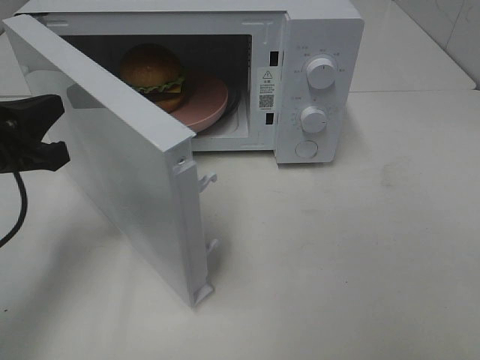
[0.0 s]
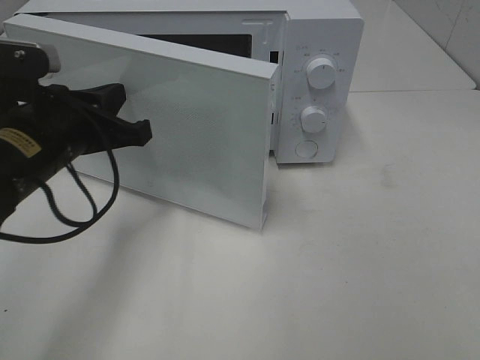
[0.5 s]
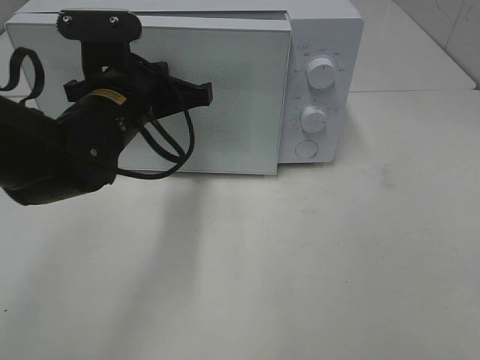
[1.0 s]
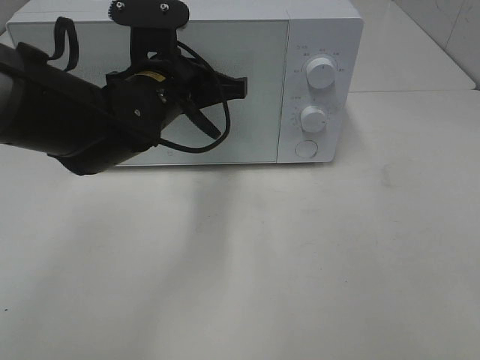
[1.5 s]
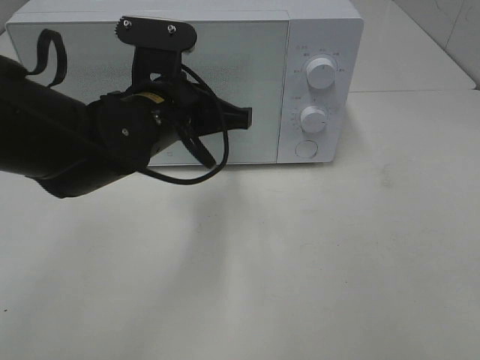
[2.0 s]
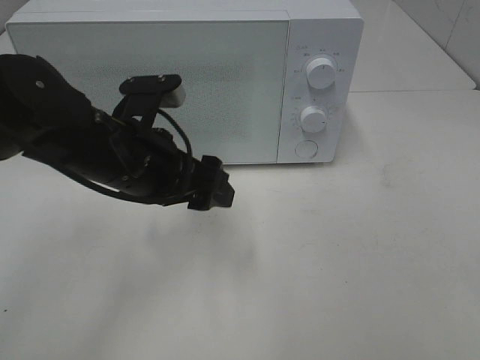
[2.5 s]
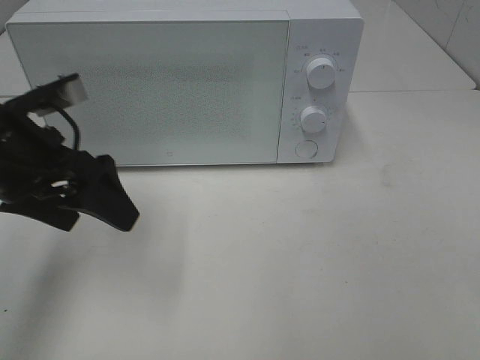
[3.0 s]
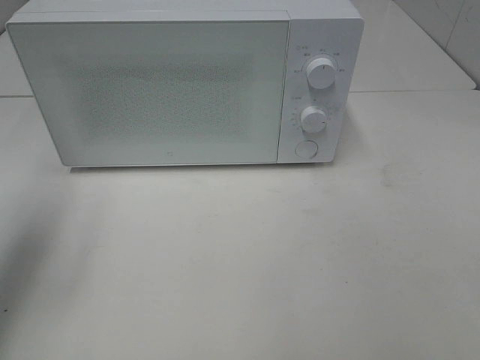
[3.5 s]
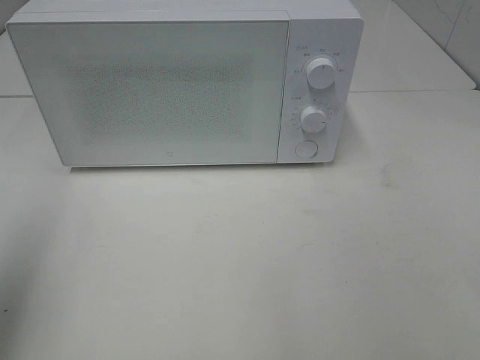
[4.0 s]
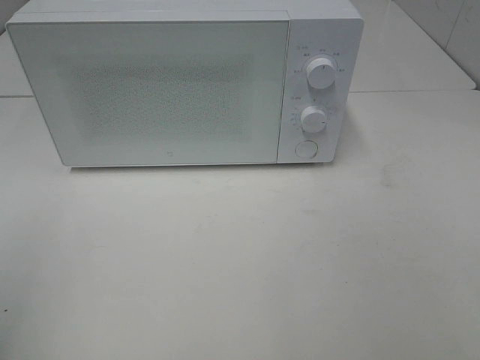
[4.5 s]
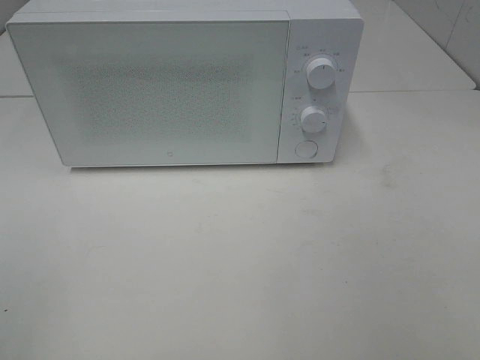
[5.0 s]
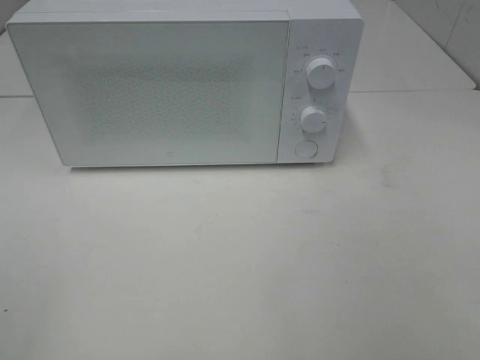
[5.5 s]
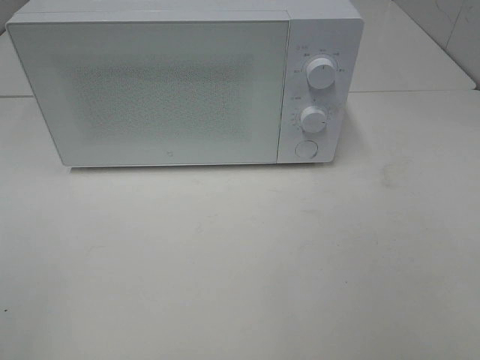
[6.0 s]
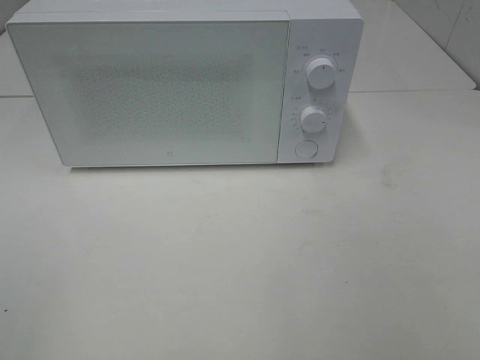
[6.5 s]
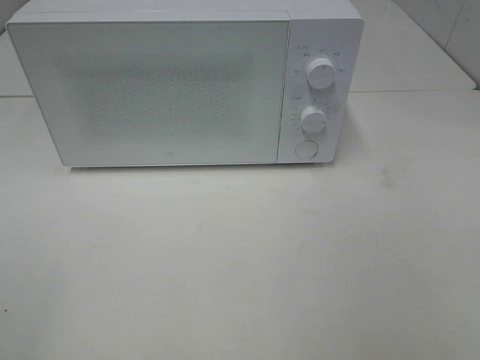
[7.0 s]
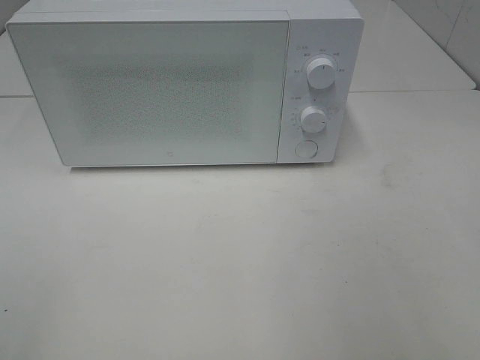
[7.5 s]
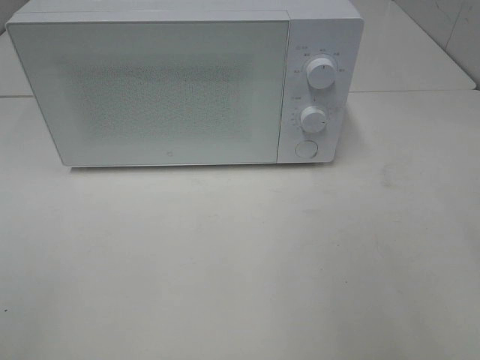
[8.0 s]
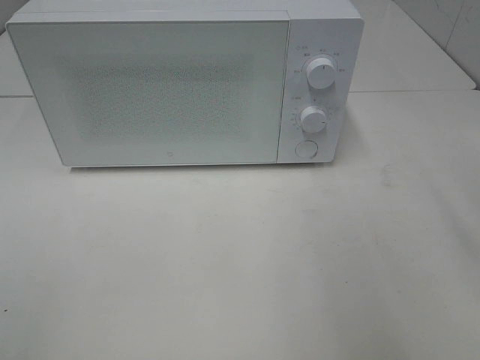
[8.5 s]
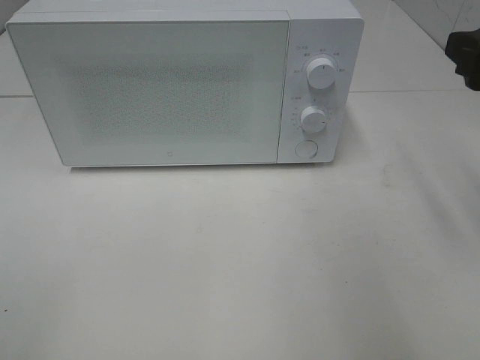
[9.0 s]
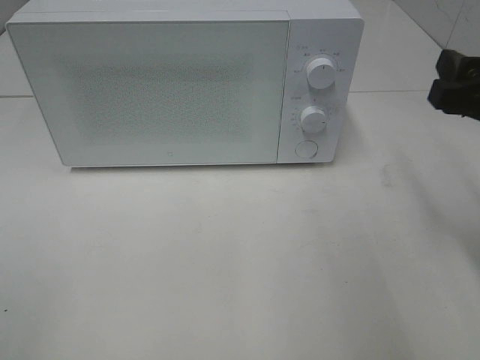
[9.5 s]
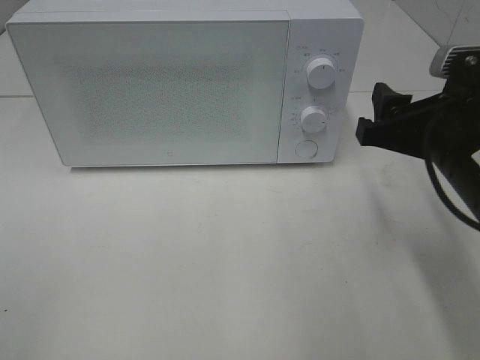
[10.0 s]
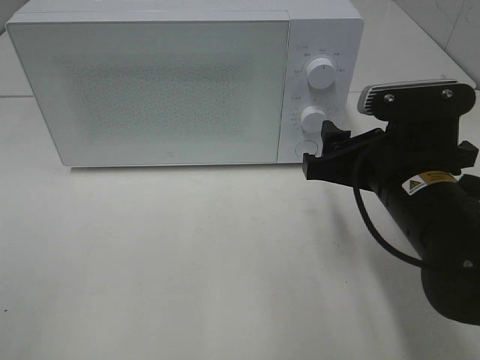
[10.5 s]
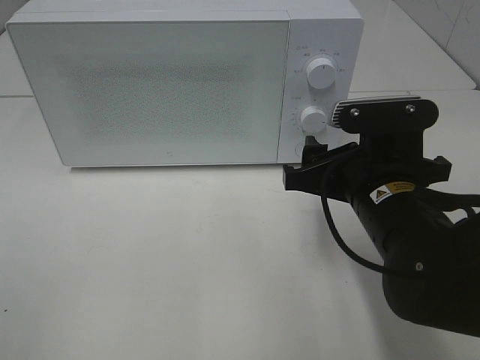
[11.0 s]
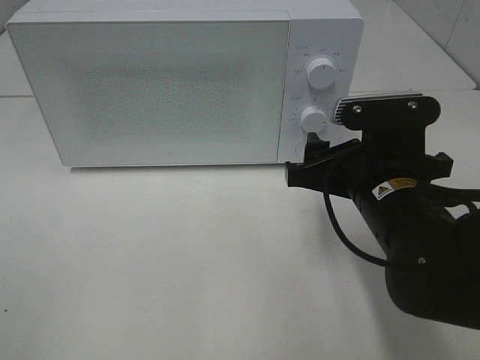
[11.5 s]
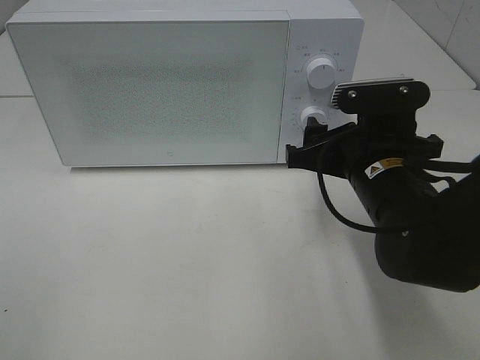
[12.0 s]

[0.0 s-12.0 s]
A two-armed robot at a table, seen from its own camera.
Task of the whole recording: Heat the burger.
Step, 0.0 to 2.0 s: Left hand: close the microwave door.
0.0 to 2.0 s: The left gripper moves to the right, some 15 cm.
2.0 to 4.0 s: The left gripper travels to the left, upward and backward by some 35 cm, and opens.
4.0 to 6.0 s: The left gripper moves backward and downward, some 15 cm.
8.0 to 10.0 s: The right gripper heads downward, forward and to the left, covering some 15 cm.
10.0 to 12.0 s: The right gripper goes roughly 5 cm to the left.

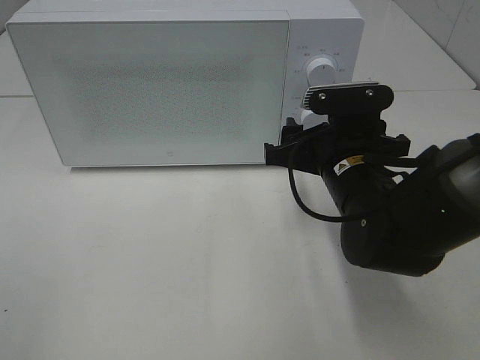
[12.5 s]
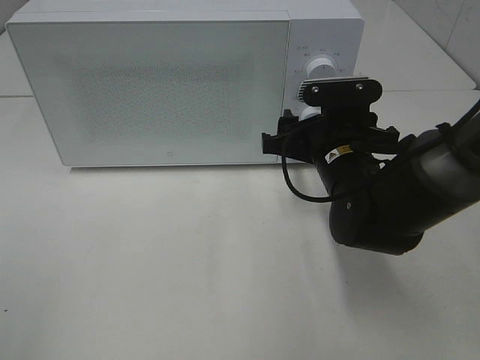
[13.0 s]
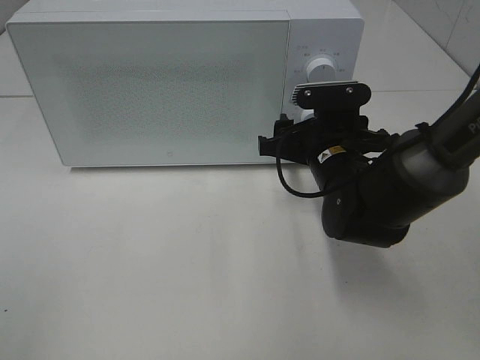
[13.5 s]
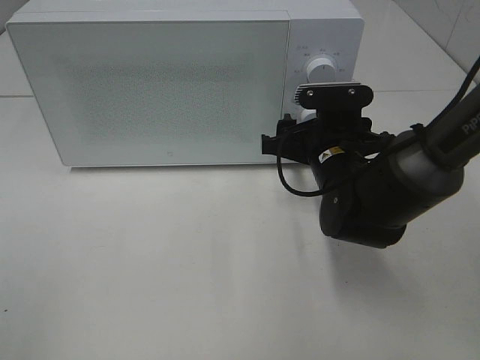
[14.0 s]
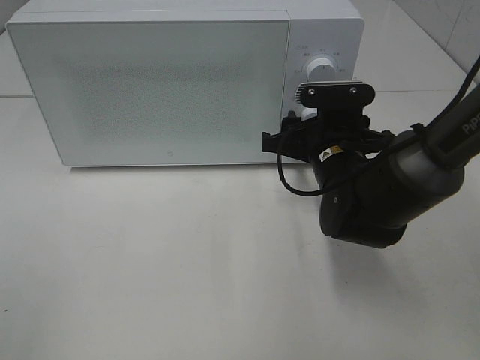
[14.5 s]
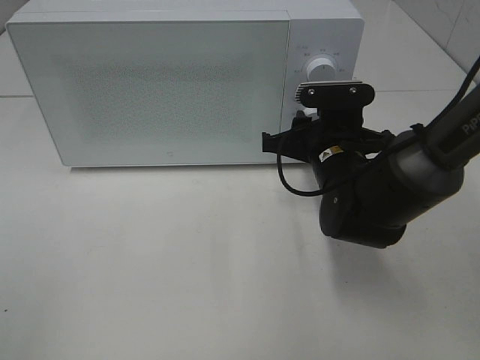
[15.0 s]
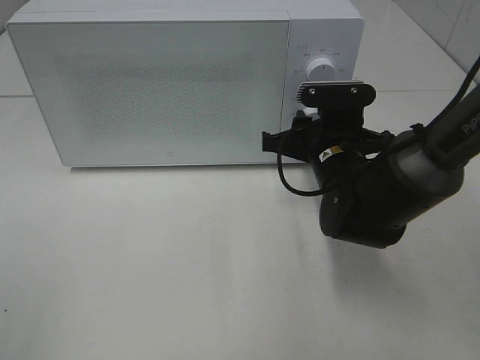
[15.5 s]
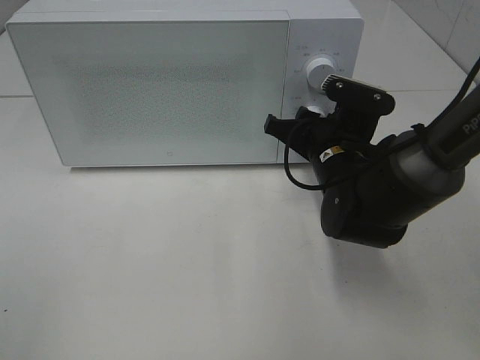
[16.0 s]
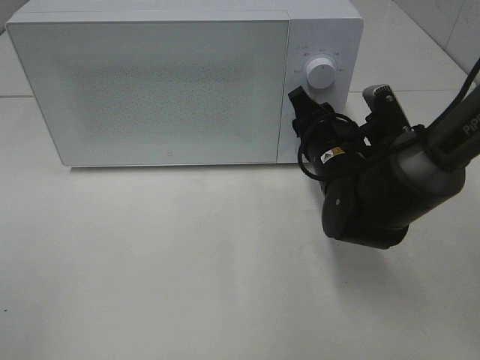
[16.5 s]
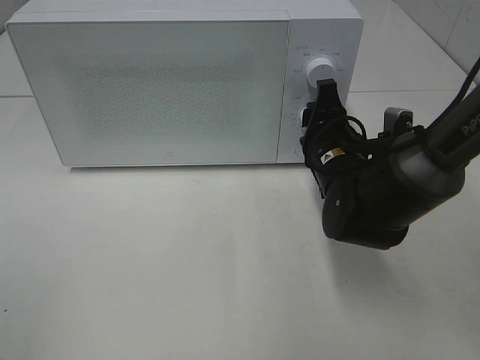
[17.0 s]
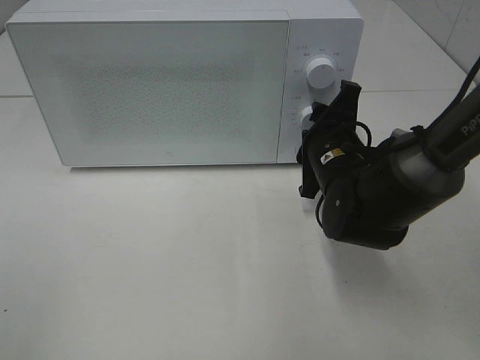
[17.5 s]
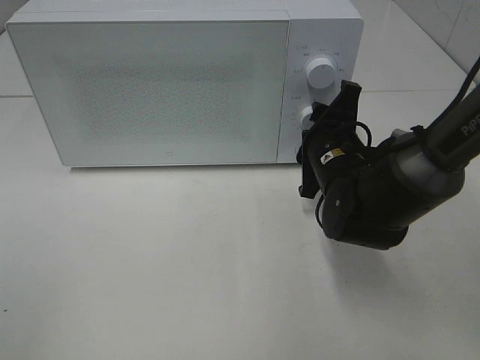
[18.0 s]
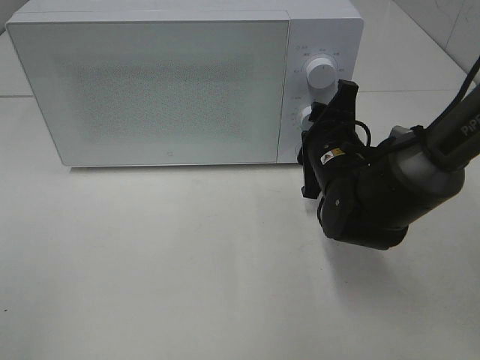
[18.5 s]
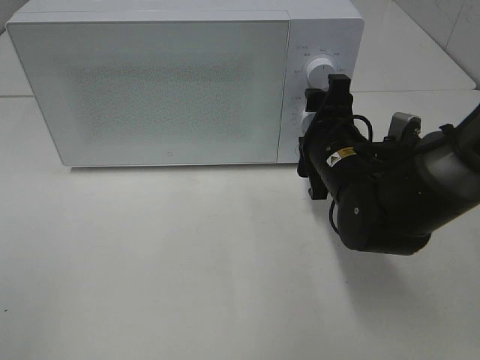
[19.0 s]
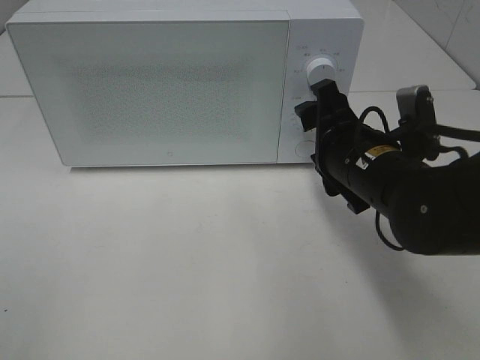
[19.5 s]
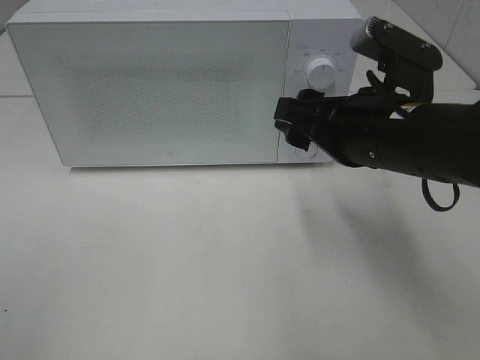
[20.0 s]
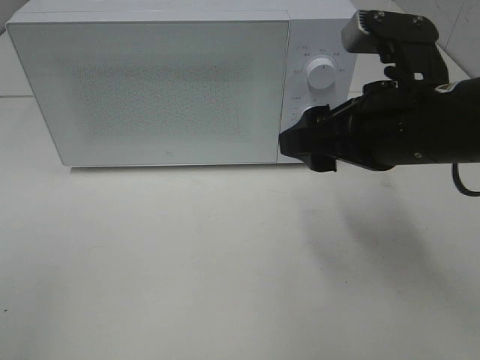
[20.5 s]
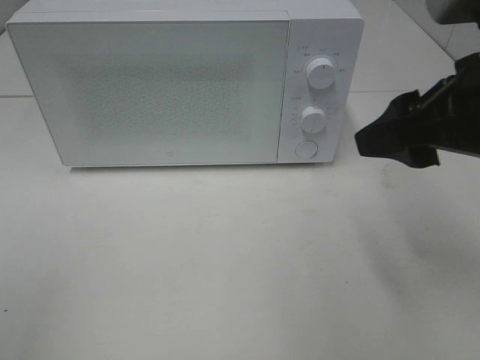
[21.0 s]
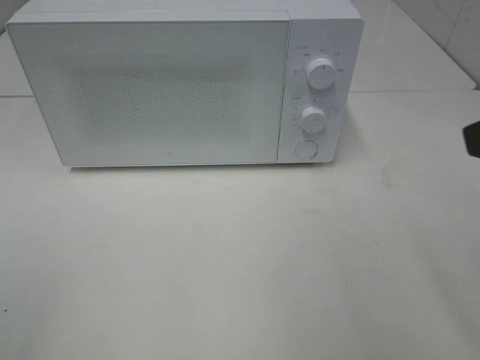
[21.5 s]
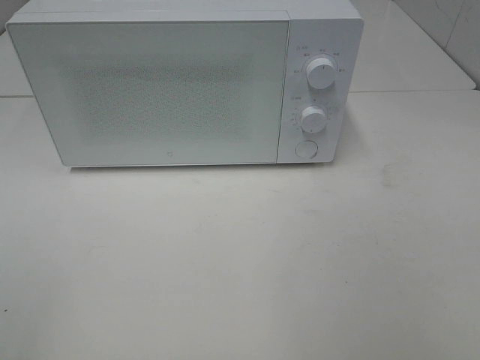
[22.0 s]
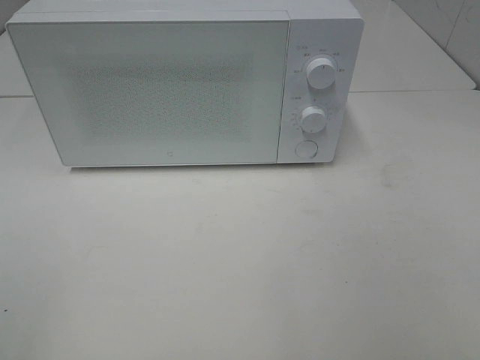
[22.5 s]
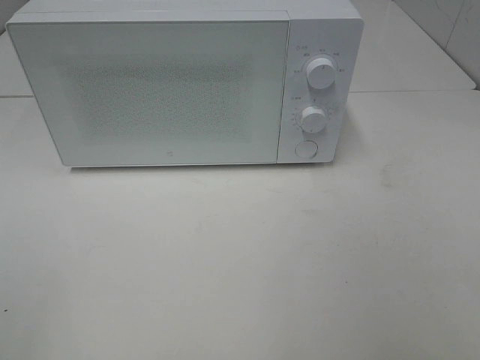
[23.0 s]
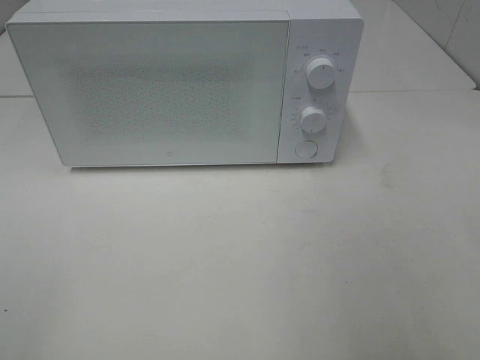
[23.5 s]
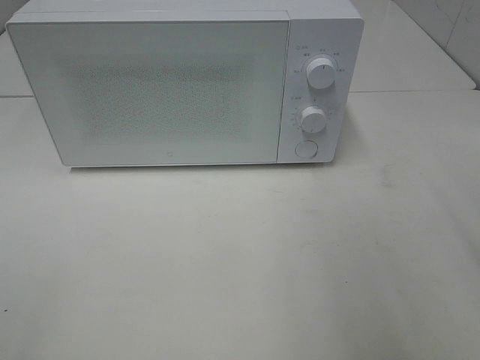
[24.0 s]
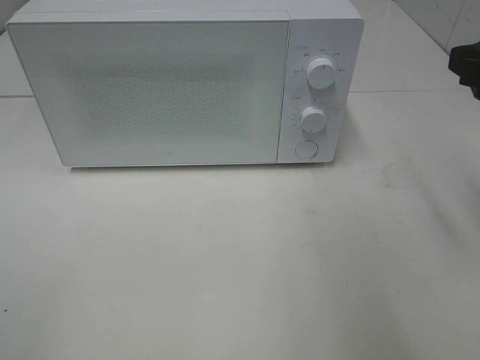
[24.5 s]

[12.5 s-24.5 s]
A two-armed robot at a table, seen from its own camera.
Task of the whole recording: Heat the burger.
Step, 12.5 to 19.0 s: Right hand: twist timer button.
12.5 to 14.5 s: The grippers stay close to where they were, moving slightly.
18.5 to 20.5 s: The right gripper shifts some 15 cm upward and backward.
20.5 to 22.5 s: The right gripper travels backward and to the right by some 25 cm.
22.5 to 24.5 s: The right gripper heads forward, covering approximately 20 cm.

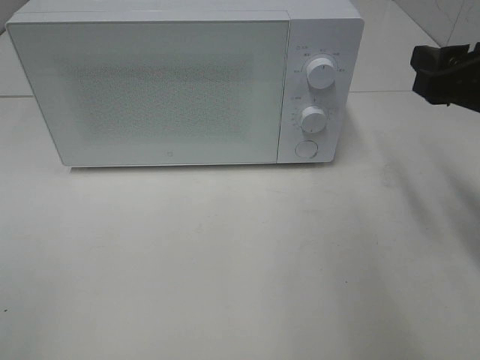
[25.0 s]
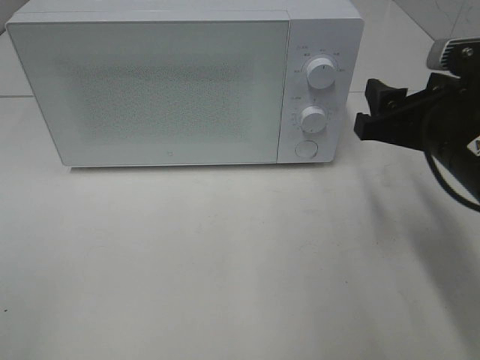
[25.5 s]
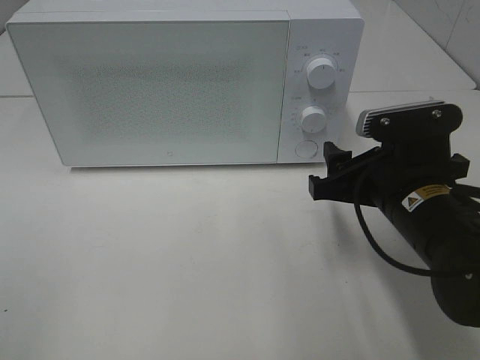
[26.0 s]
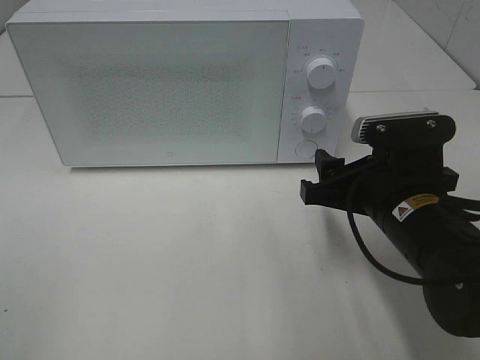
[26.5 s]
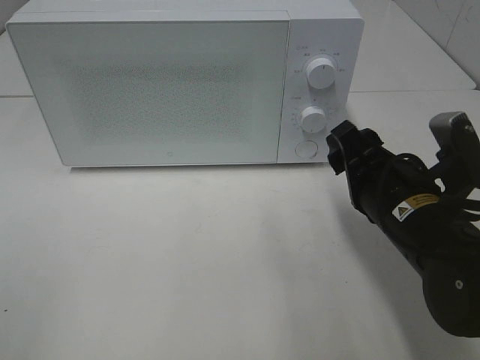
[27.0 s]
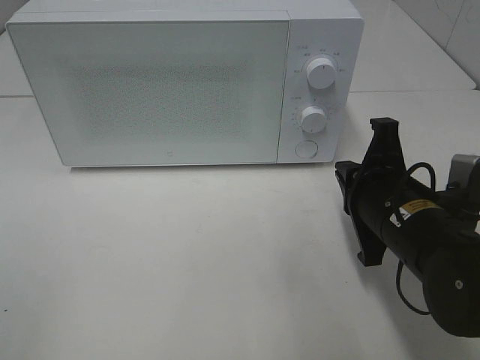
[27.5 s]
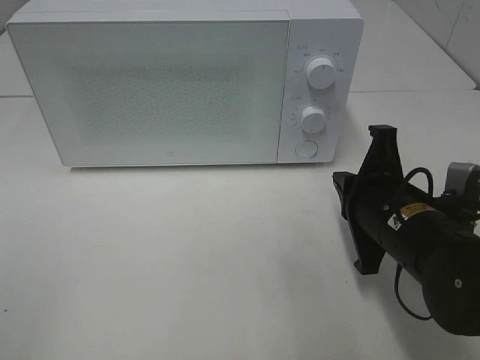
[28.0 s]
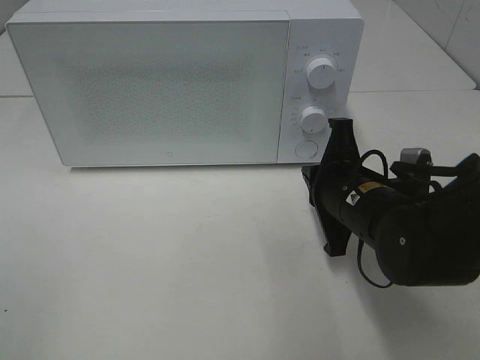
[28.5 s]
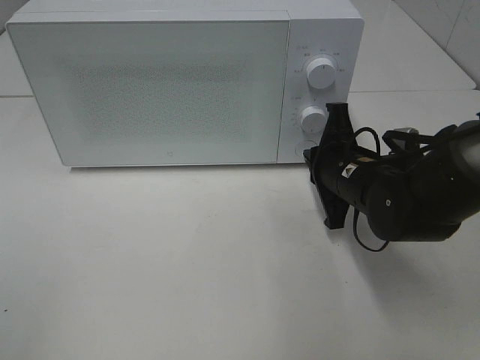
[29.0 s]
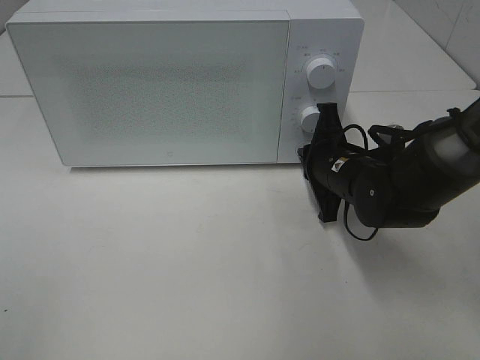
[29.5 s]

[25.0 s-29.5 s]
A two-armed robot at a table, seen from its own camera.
Task of the whole recording: Heat the burger.
25.0 to 27.0 s: The right gripper shifts approximately 15 cm downward and to the left.
27.0 to 29.5 s: The right gripper shifts about 10 cm forward and downward, and closes up.
